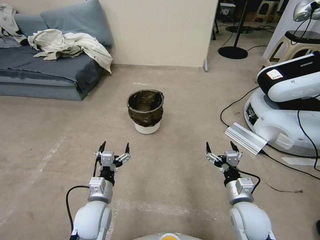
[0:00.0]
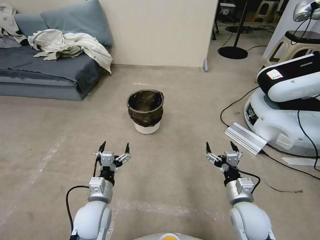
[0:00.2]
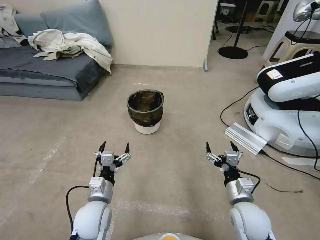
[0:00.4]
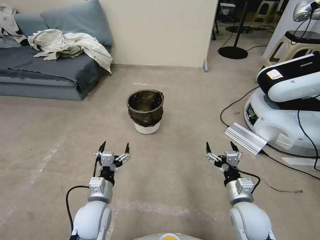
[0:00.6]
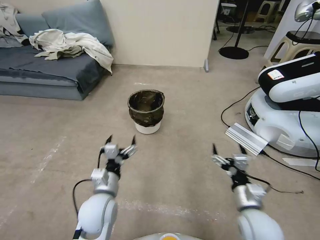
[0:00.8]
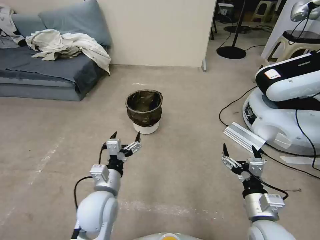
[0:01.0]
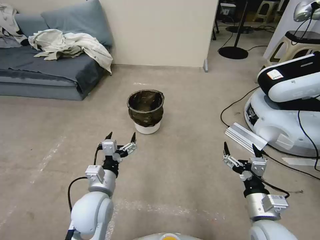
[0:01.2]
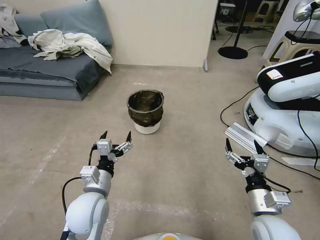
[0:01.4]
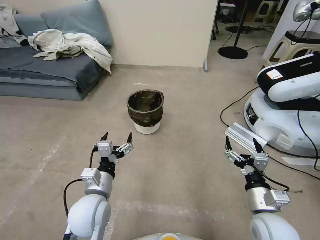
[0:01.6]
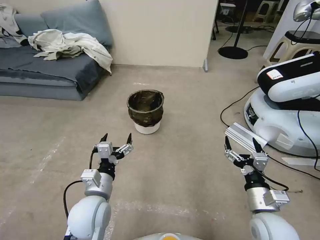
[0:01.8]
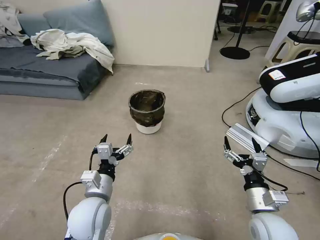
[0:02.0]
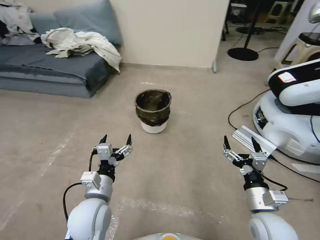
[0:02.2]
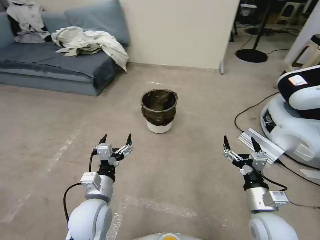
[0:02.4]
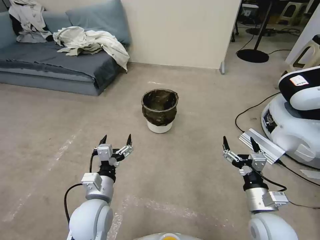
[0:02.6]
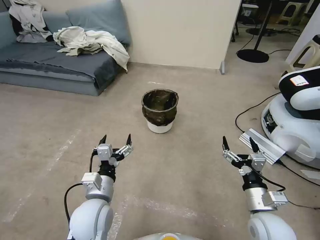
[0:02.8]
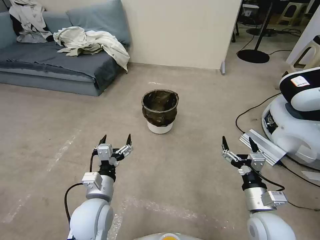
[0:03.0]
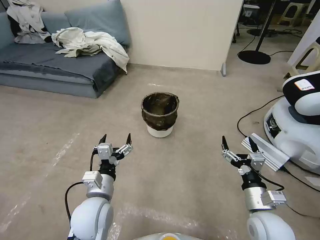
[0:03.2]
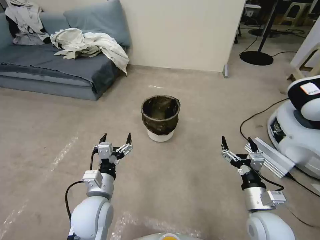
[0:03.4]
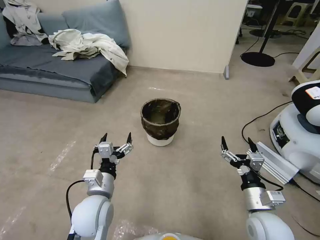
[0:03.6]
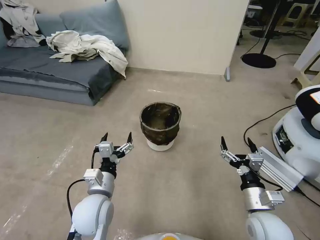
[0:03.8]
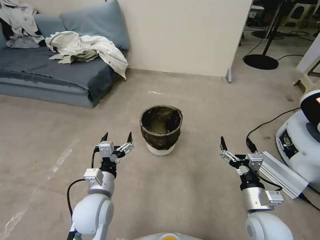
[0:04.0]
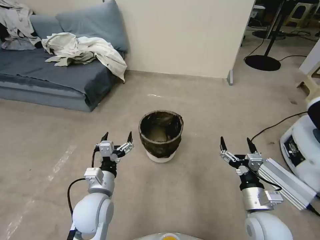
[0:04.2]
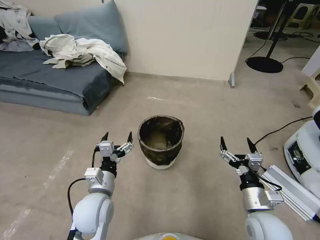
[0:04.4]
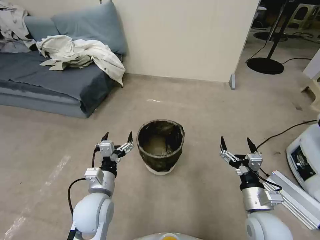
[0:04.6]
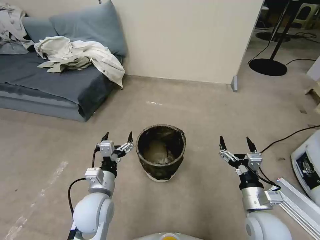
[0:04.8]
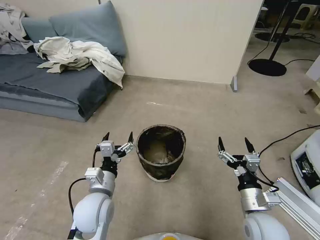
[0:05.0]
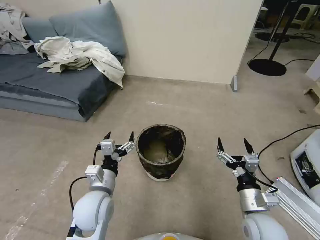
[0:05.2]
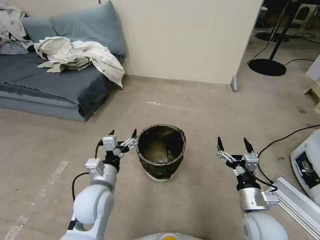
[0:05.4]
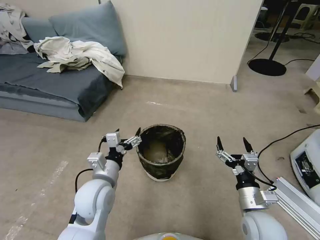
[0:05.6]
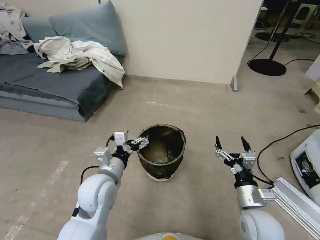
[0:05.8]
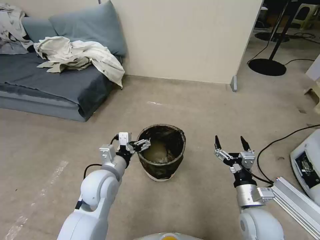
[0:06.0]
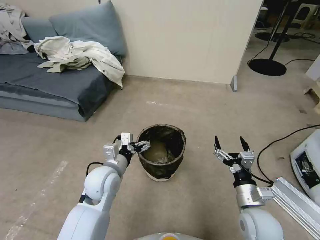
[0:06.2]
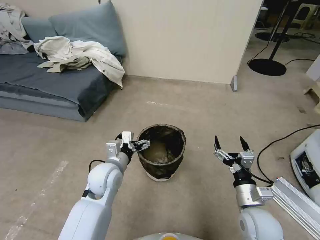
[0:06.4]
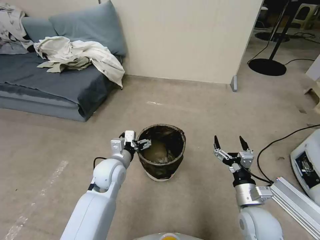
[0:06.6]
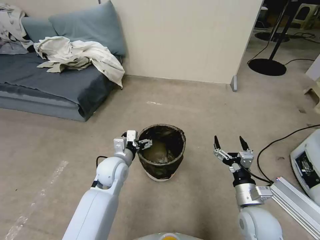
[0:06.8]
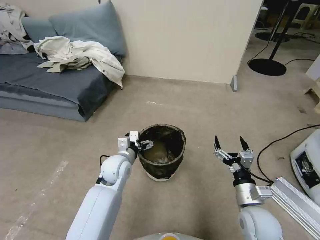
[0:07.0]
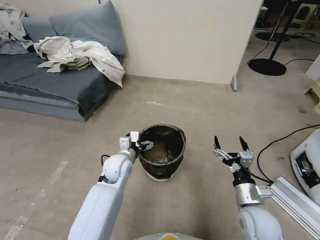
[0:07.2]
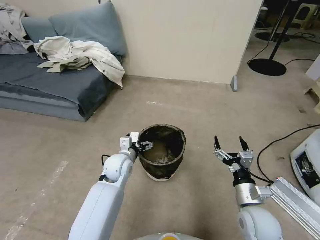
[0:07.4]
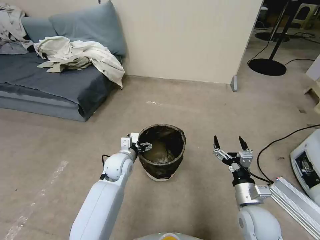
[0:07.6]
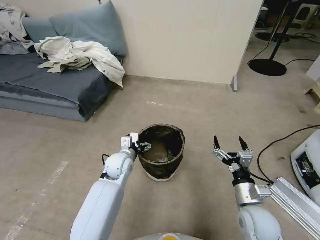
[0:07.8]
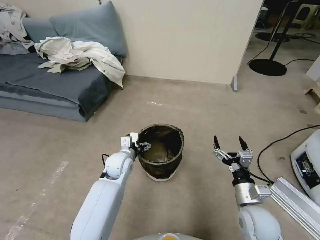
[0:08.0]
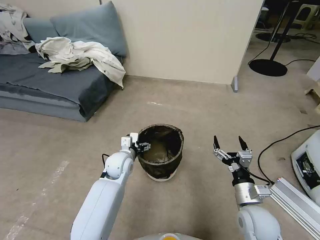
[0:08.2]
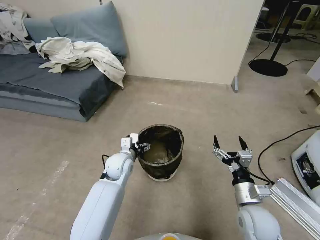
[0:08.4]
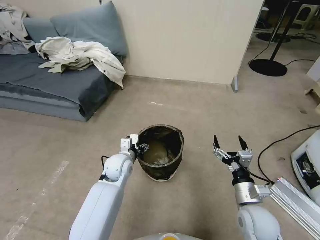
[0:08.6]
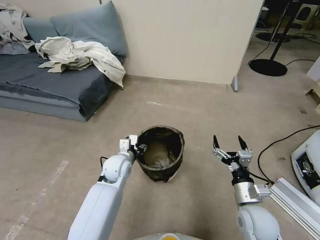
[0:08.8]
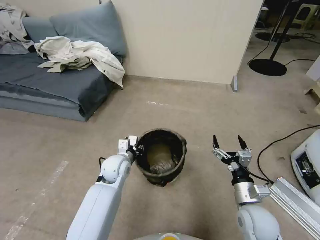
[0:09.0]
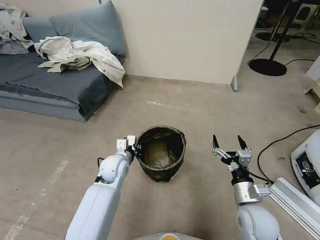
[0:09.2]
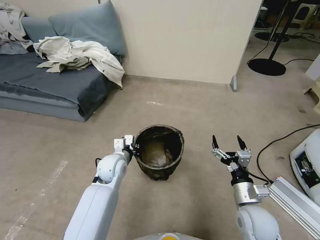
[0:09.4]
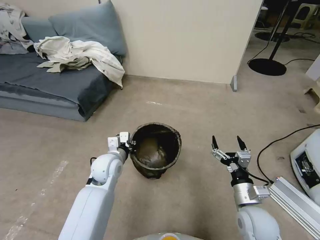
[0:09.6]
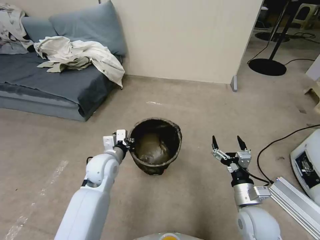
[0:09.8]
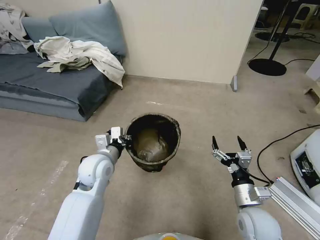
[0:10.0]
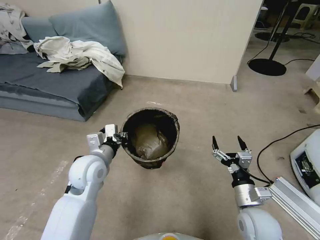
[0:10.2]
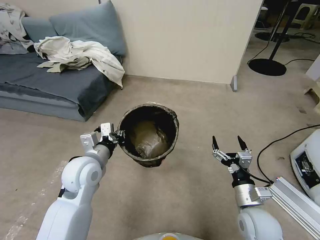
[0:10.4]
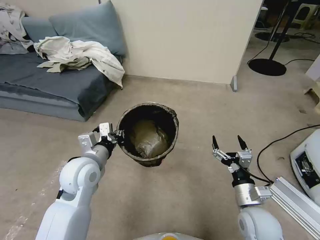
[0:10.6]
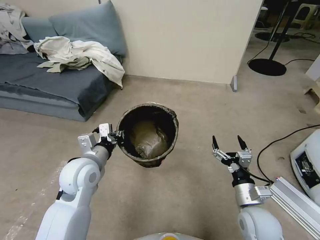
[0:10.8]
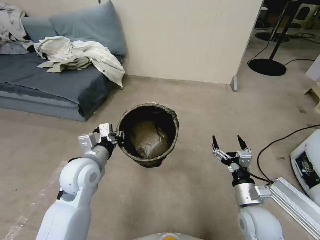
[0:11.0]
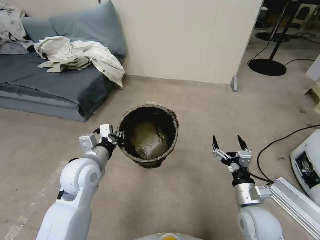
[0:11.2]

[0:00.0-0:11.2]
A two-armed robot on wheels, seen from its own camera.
Task of the whole recording: Pick up the trash can from the floor.
0:04.8 to 0:06.4: The left gripper goes some 10 cm forward.
0:06.4 to 0:08.0: The left gripper goes about 10 cm forward and downward.
0:08.0 to 0:09.6: The left gripper shifts by some 5 cm, and closes up.
0:09.6 to 0:11.2: The left gripper heads upward and backward, covering about 10 cm.

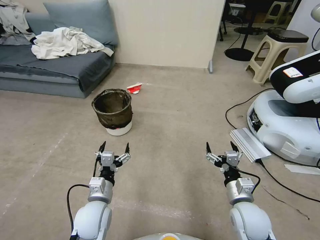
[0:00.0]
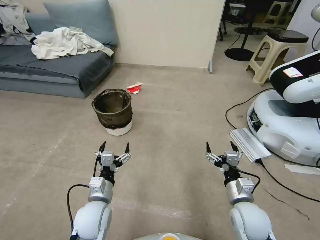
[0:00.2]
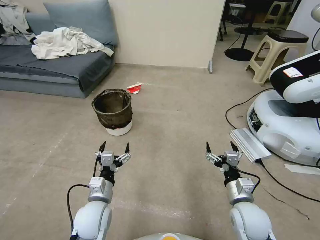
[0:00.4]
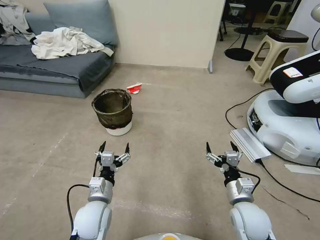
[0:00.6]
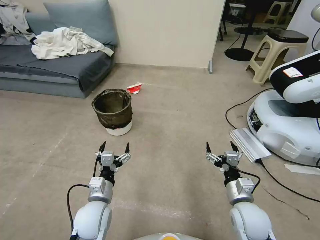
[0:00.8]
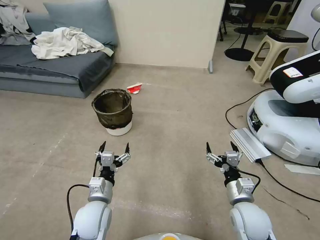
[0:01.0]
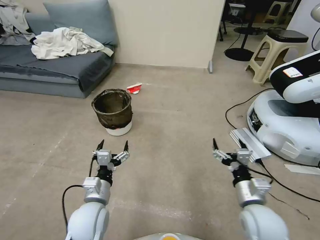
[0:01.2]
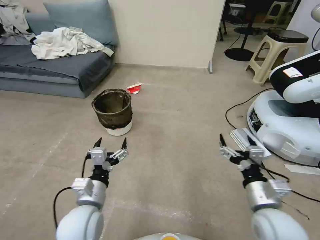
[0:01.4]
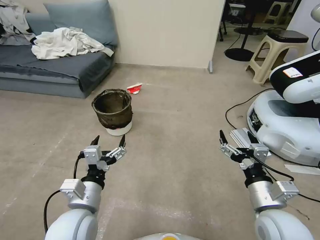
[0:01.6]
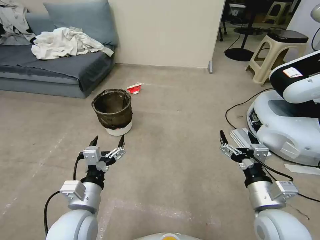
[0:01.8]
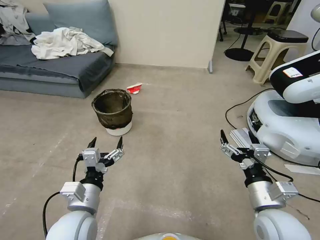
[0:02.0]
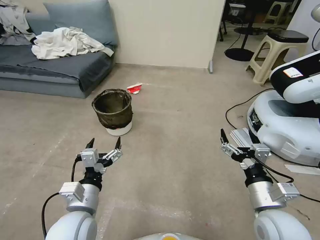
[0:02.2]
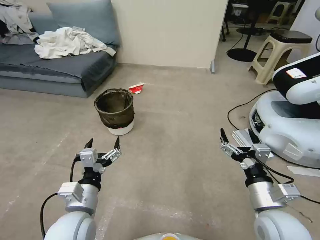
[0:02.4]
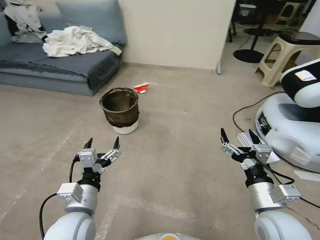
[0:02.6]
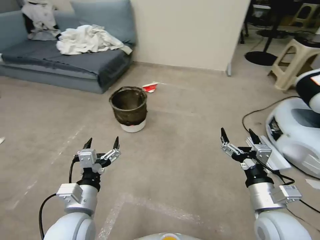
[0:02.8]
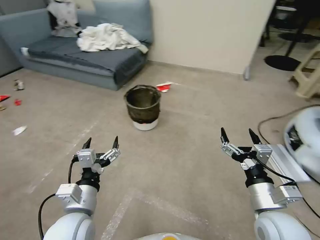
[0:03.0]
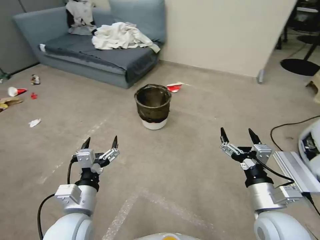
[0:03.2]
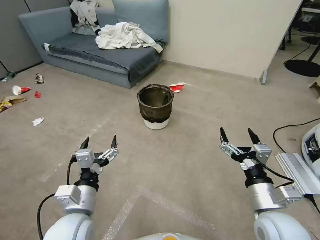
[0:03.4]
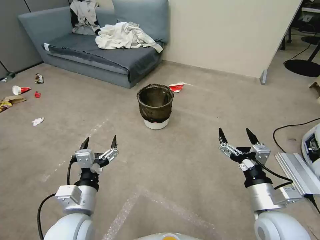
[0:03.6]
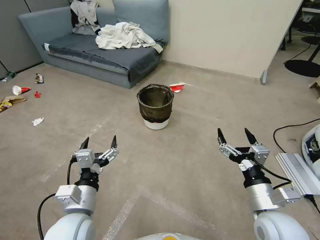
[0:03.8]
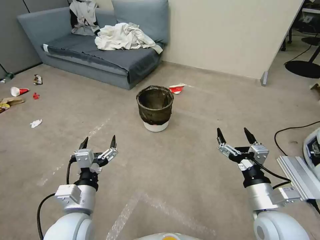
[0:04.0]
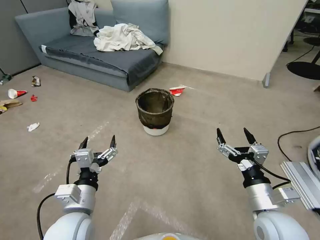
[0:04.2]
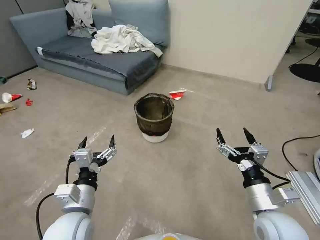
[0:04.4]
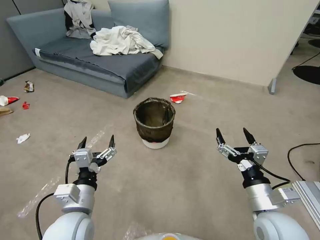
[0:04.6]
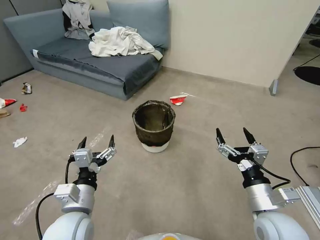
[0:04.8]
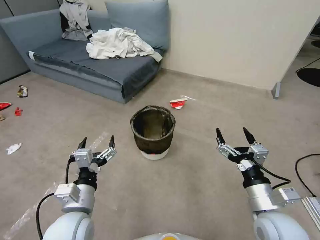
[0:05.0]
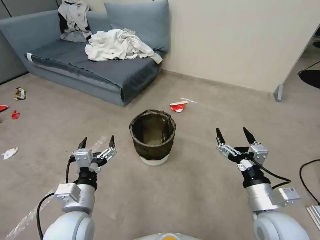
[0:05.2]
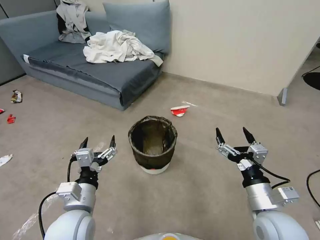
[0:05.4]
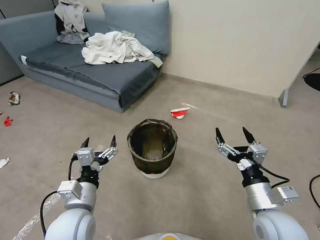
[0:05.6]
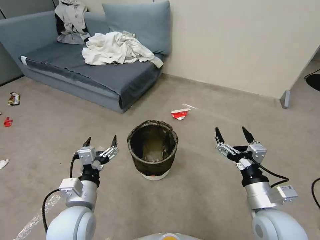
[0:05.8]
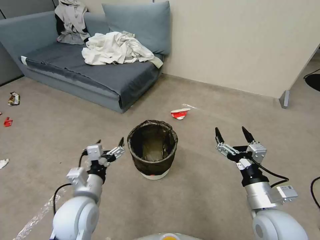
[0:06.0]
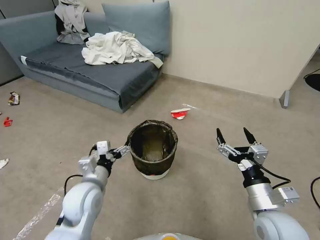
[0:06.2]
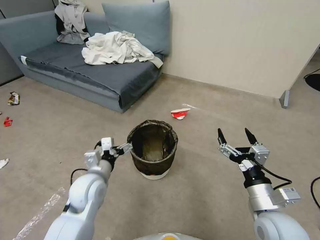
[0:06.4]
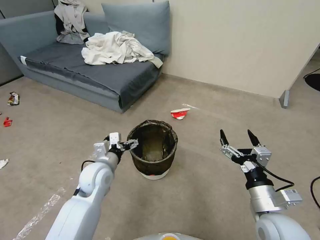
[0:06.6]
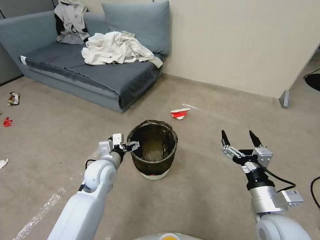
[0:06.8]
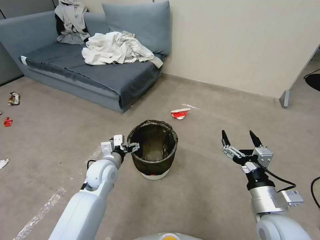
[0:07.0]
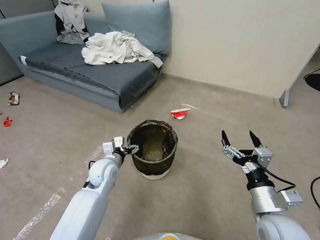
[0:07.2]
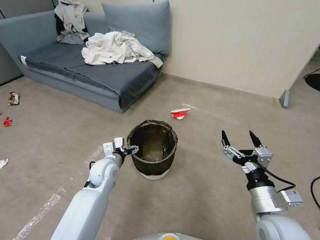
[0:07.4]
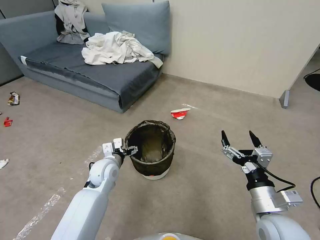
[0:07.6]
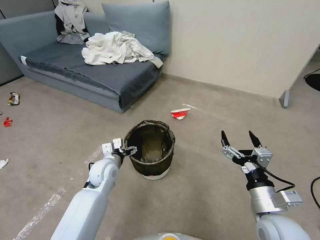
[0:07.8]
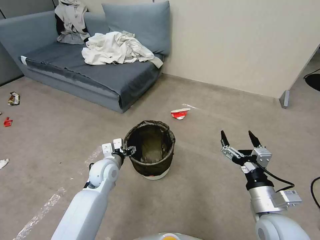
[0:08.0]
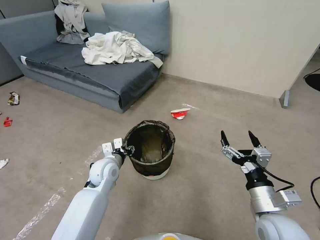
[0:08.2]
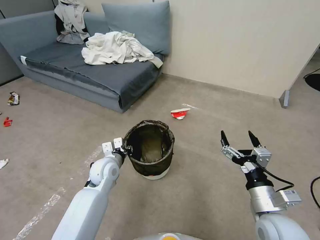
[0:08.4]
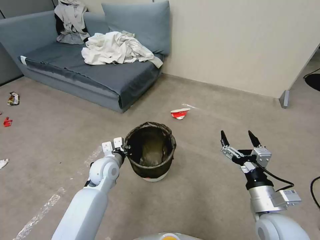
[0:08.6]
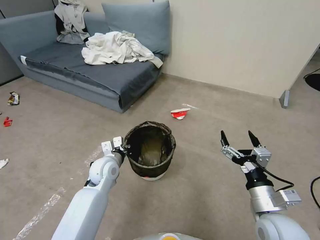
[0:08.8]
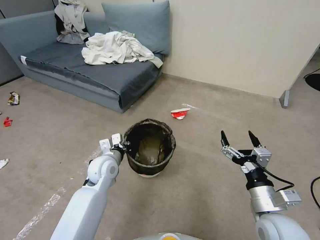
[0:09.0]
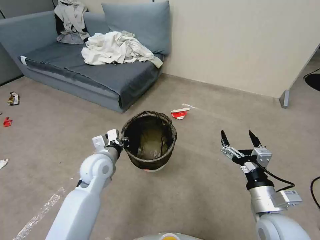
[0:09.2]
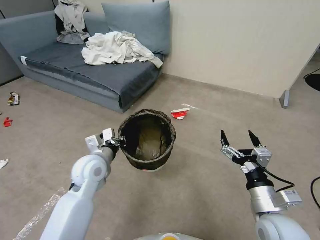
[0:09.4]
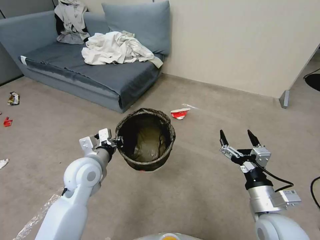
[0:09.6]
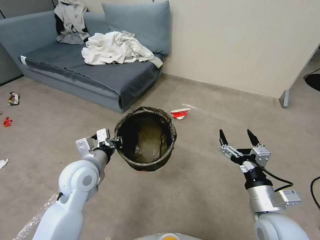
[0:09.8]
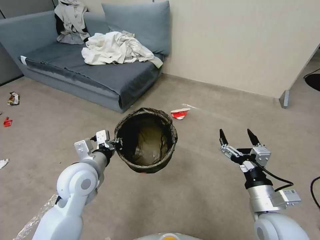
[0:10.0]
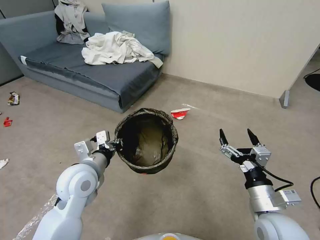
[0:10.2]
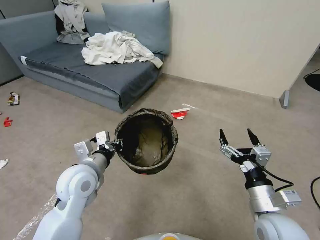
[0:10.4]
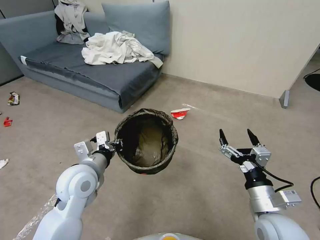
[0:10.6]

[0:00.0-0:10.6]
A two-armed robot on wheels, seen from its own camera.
Task of the whole recording: Pick up the trash can from the floor.
0:06.0 to 0:07.6: The left gripper moves forward and downward, about 15 cm.
0:07.6 to 0:09.0: The left gripper closes up.
0:09.0 to 0:10.6: The left gripper moves upward and backward, some 10 cm.

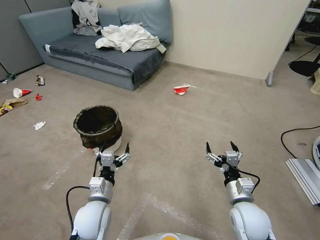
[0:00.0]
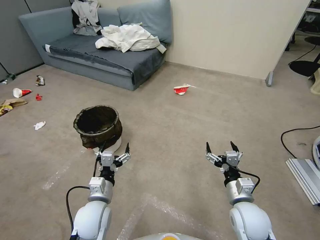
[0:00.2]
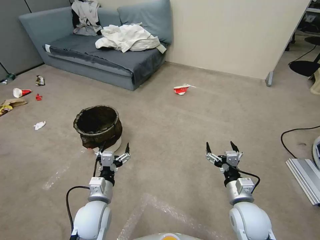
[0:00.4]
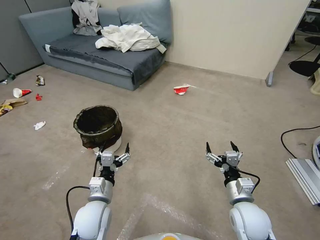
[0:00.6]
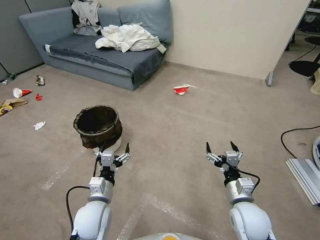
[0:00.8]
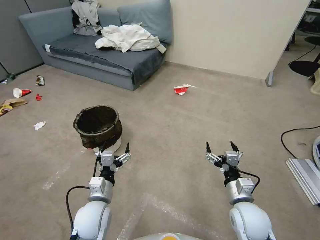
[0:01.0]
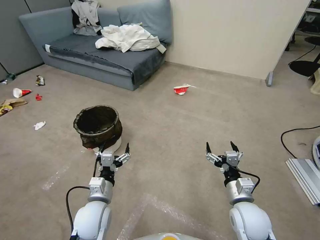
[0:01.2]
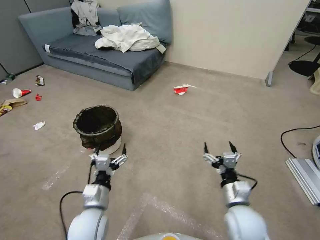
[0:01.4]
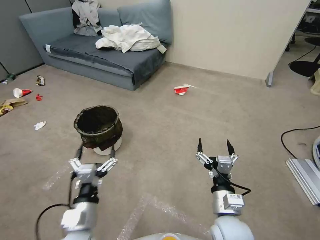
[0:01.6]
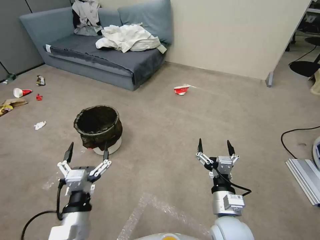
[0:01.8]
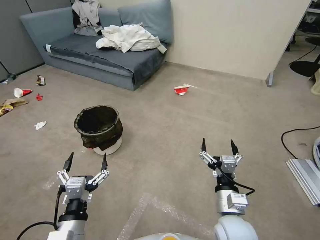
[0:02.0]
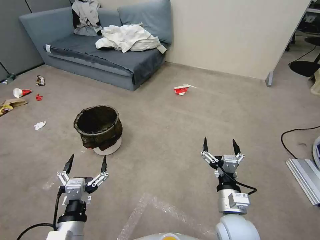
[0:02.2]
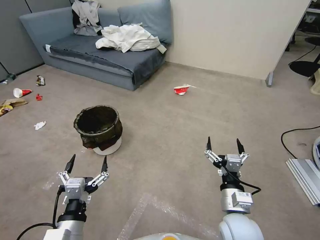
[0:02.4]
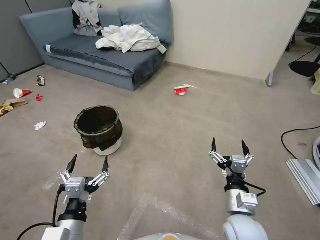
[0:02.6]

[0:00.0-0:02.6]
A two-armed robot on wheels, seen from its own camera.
Task of the whole recording: Pick up the trash can from the floor.
0:01.2 to 0:02.6: The left gripper is displaced backward and upward by approximately 15 cm, while the right gripper shifts by some 5 cm.
